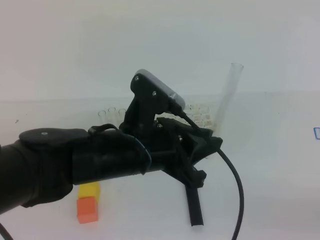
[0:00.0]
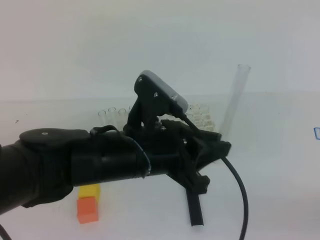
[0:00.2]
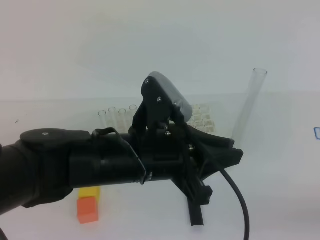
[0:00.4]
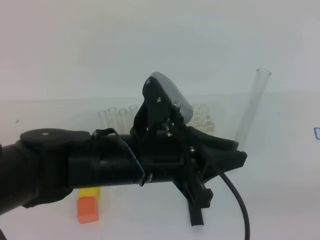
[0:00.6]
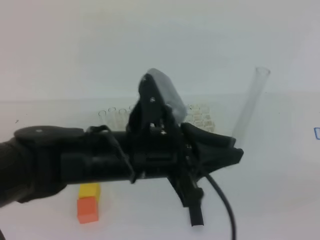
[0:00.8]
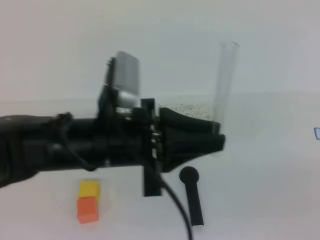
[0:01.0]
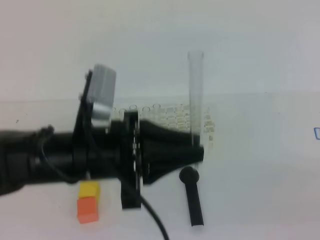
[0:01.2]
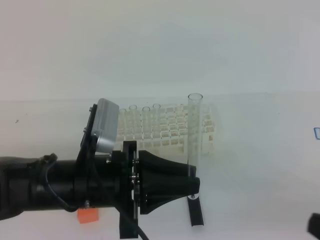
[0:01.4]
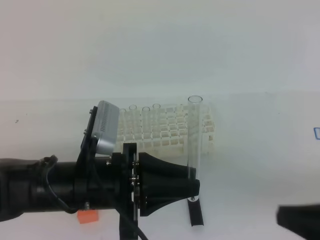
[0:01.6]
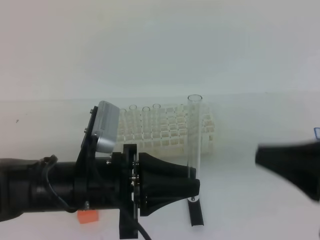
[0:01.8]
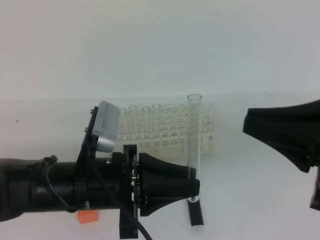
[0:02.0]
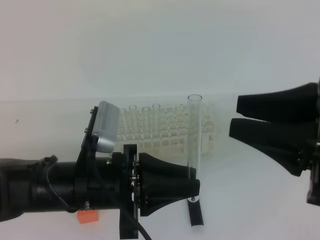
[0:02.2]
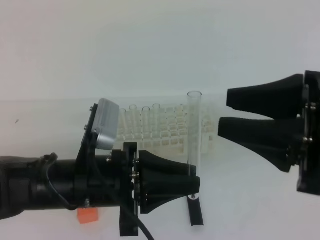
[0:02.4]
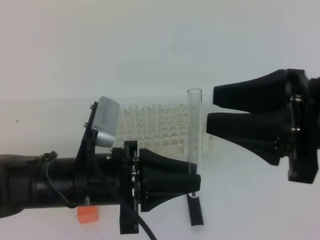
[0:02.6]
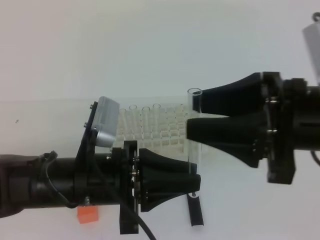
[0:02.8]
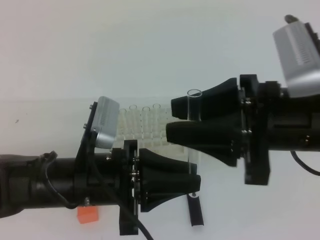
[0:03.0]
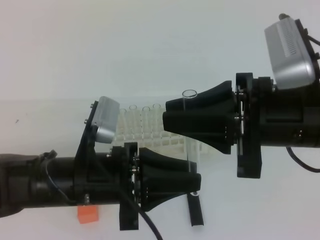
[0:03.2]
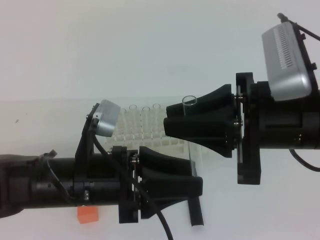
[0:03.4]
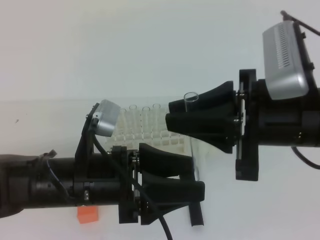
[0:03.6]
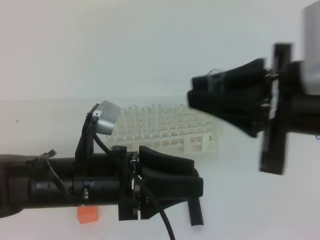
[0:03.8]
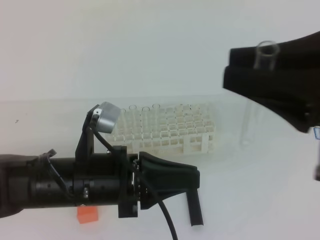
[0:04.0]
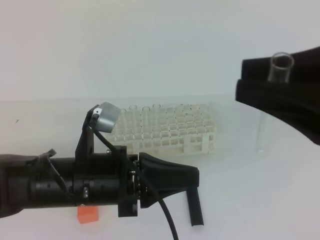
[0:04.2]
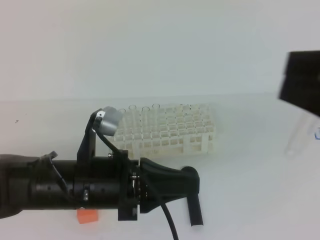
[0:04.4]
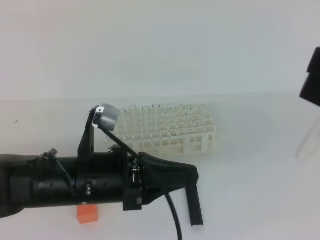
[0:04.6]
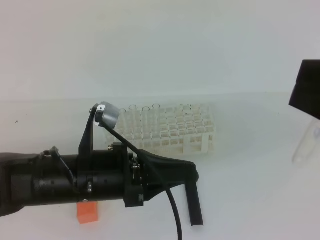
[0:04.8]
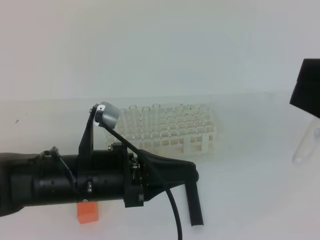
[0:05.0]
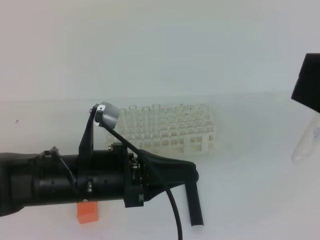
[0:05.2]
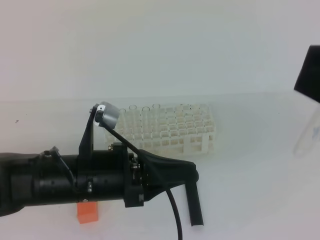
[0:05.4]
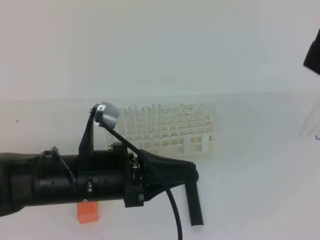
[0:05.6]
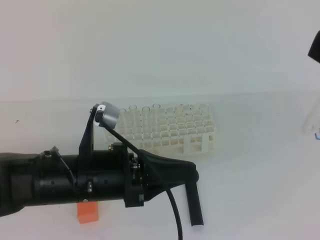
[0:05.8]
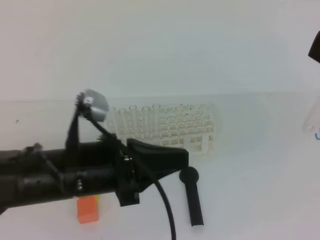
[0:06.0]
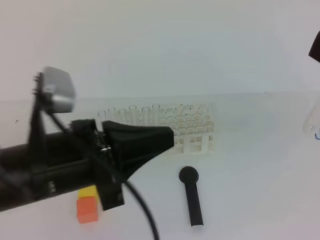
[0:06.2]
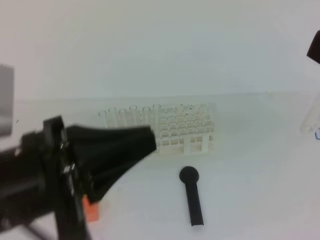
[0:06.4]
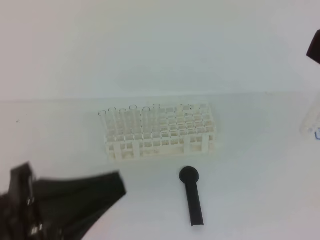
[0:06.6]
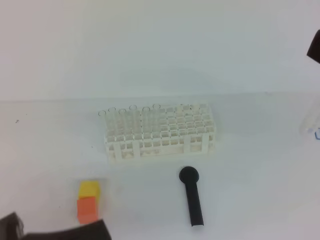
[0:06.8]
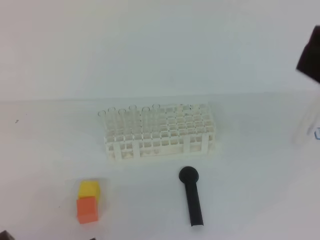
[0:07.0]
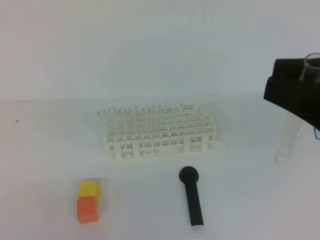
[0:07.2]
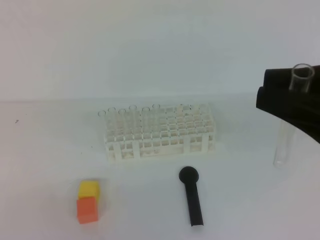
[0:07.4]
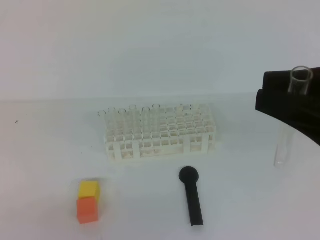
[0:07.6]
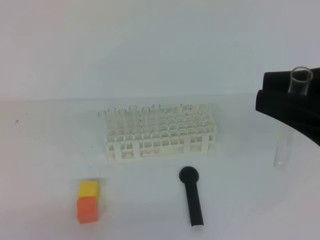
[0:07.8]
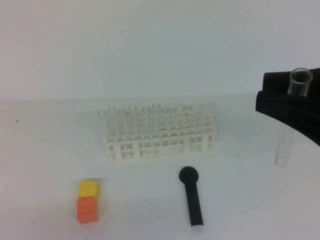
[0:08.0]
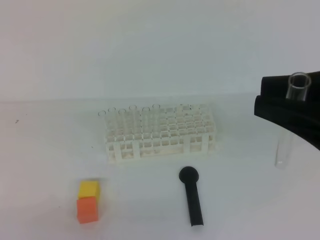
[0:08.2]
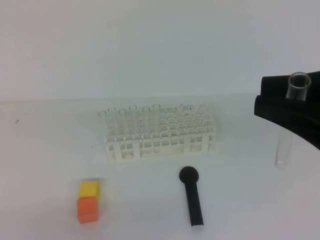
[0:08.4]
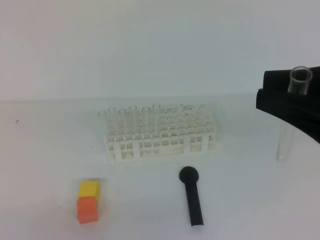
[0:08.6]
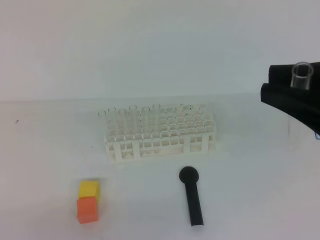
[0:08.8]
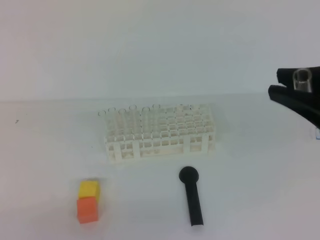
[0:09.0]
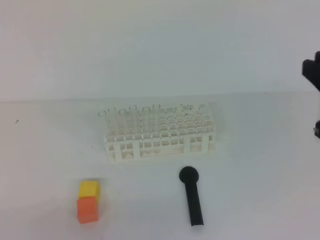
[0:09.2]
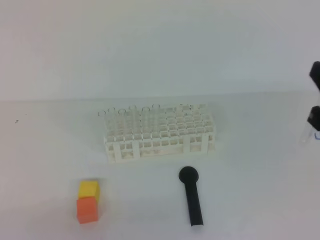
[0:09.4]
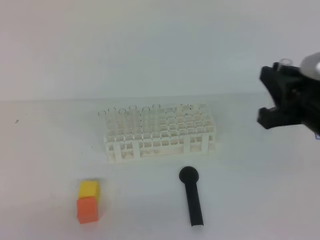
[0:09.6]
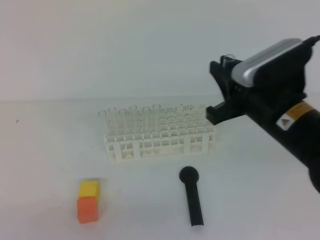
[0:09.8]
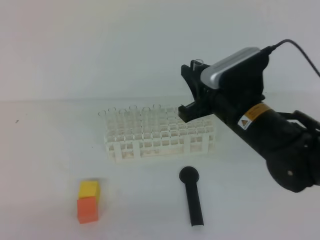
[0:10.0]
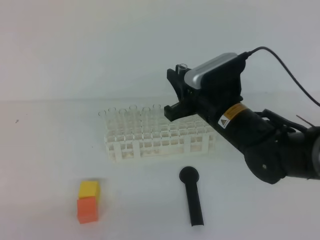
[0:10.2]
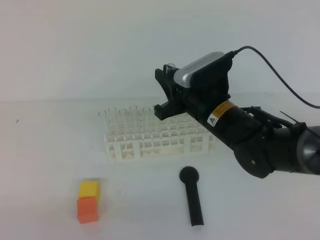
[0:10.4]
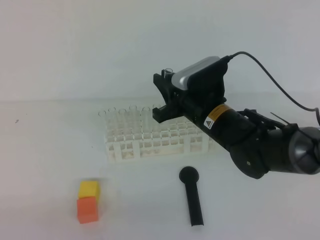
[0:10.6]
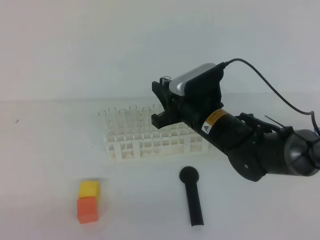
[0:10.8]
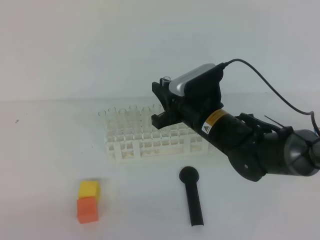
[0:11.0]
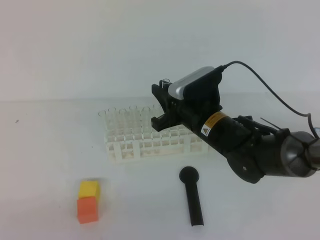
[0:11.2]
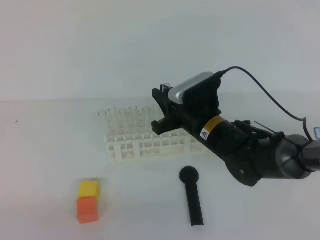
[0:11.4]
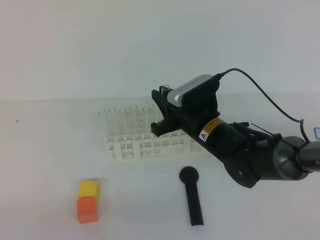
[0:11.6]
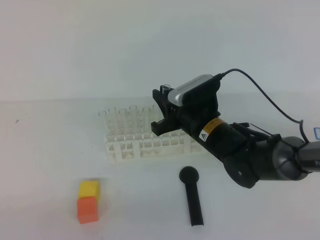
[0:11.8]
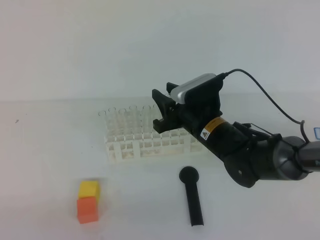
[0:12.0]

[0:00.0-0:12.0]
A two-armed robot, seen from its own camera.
0:00.0 to 0:01.6: The left gripper heads to the left, covering about 5 cm, while the right gripper goes roughly 10 cm to the left and upward.
0:01.6 to 0:03.0: The right gripper shifts some 15 cm forward, to the left and upward, and opens.
0:03.0 to 0:04.4: The right gripper moves upward, backward and to the right, some 15 cm, and closes; the left gripper opens, then closes again.
0:04.4 to 0:06.0: The grippers make only small movements.
0:06.0 to 0:07.6: The left gripper goes roughly 20 cm backward and to the left.
0:07.6 to 0:09.0: The grippers move only a little.
0:09.0 to 0:10.4: The right gripper moves forward, downward and to the left, approximately 30 cm.
0:10.4 to 0:12.0: The right gripper heads downward, covering roughly 5 cm, and opens its fingers.

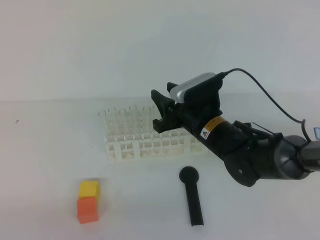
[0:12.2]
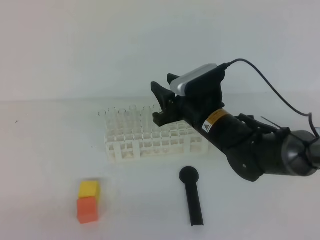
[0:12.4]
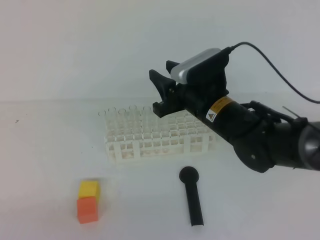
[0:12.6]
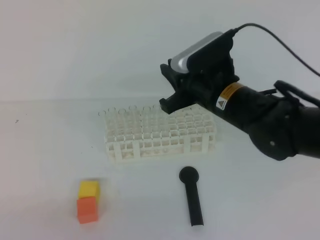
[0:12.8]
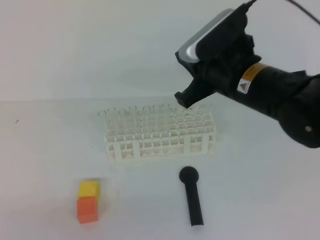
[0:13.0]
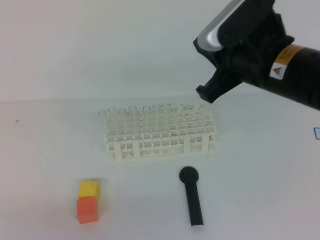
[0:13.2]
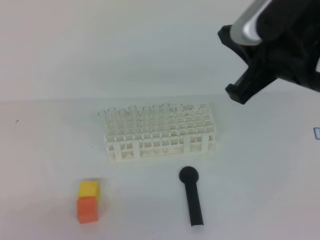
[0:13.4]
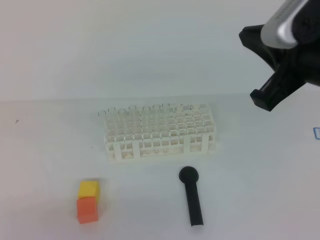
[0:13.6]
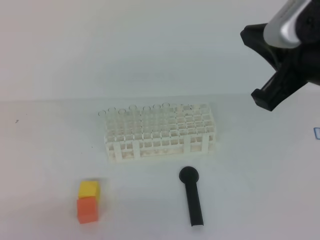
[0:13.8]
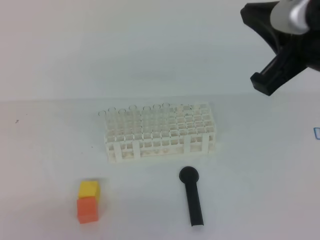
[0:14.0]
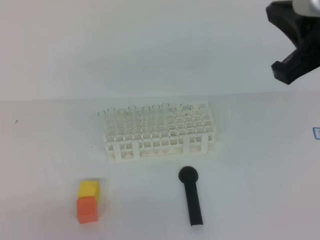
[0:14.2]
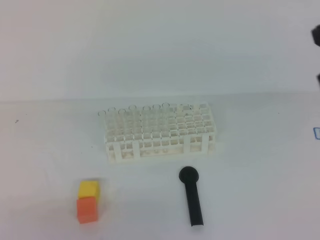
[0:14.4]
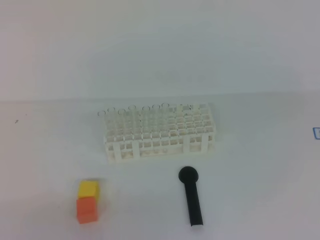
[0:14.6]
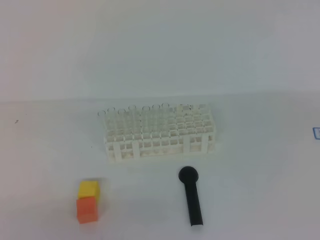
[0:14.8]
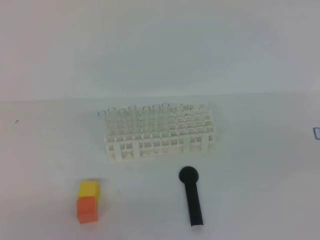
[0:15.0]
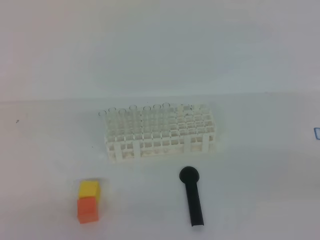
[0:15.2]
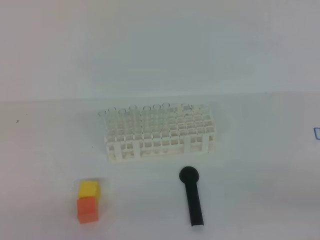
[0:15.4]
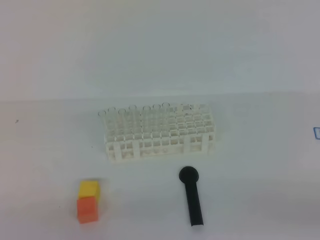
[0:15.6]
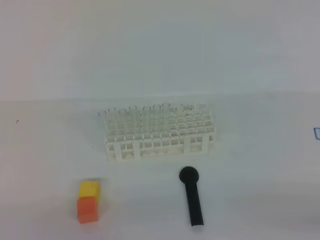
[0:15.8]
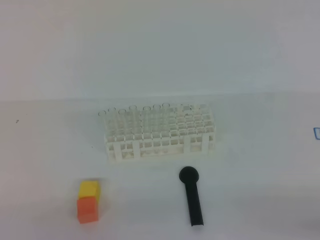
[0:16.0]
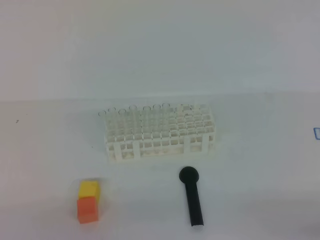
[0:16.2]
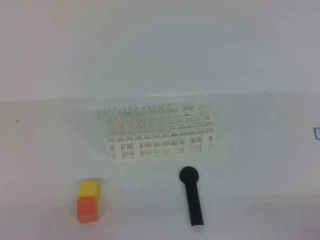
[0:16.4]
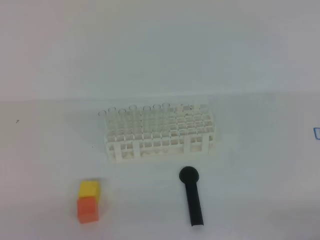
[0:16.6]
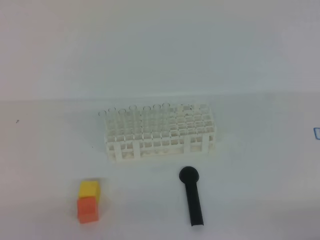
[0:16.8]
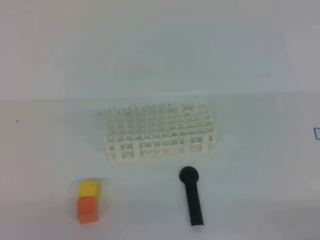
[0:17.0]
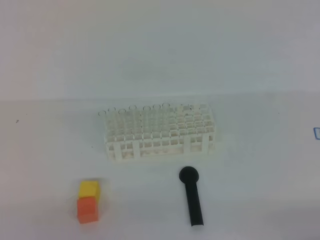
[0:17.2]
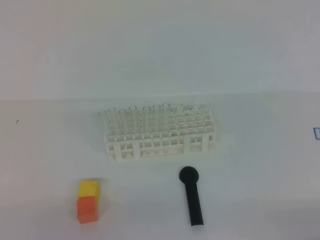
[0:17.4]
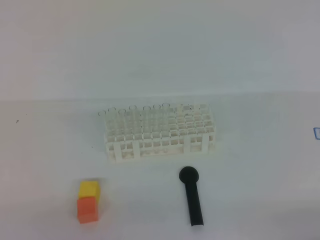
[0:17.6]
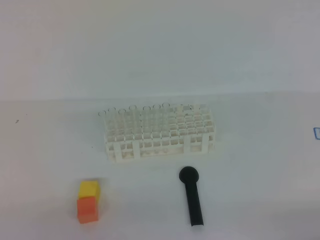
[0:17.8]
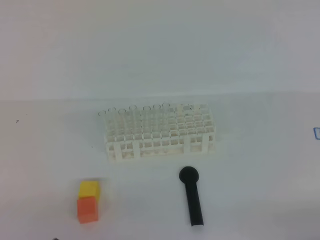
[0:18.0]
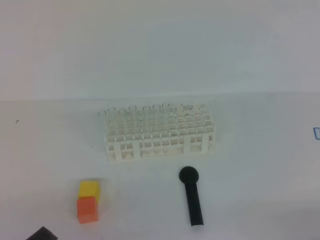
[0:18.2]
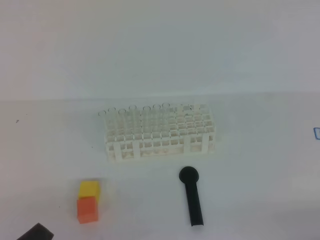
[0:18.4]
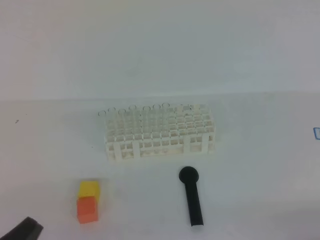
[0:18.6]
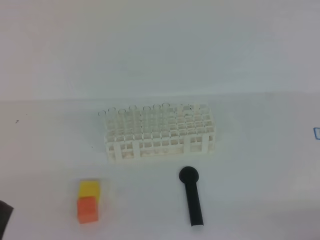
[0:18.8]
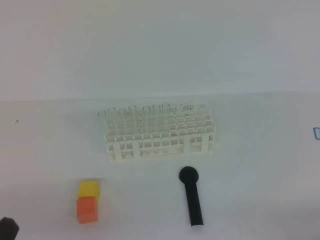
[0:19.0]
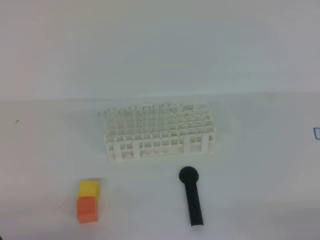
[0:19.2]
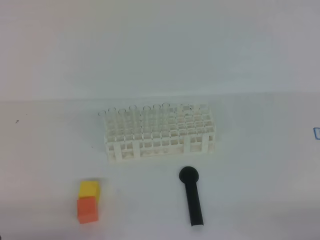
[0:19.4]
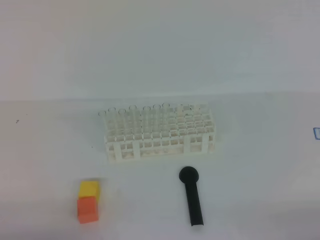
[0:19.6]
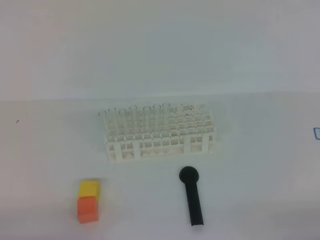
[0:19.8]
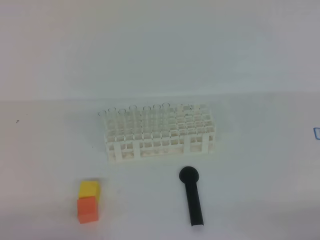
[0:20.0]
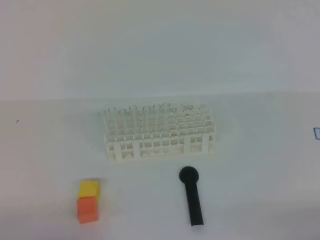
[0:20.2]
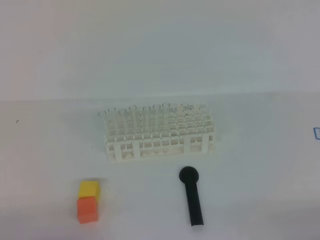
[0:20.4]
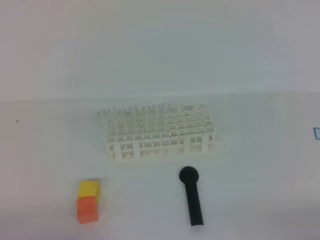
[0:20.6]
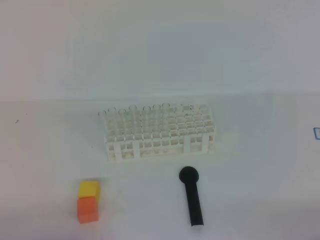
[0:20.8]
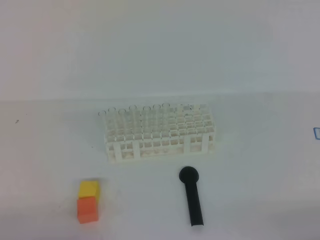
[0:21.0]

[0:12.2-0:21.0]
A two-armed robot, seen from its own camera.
0:12.2 to 0:13.6: The right gripper is displaced upward, backward and to the right by approximately 25 cm, and closes its fingers.
0:13.6 to 0:15.2: The right gripper goes roughly 25 cm to the right, backward and downward.
0:16.6 to 0:18.0: The two grippers keep their place.
